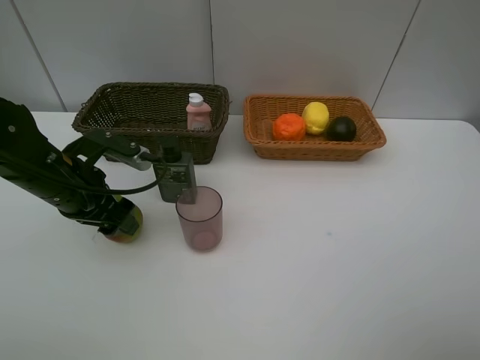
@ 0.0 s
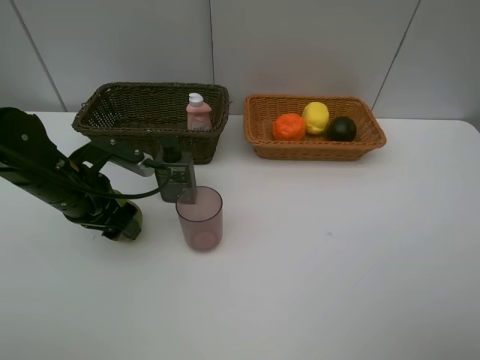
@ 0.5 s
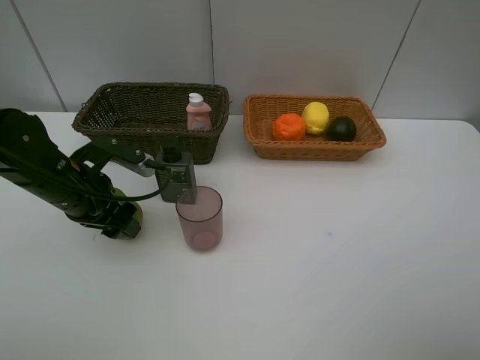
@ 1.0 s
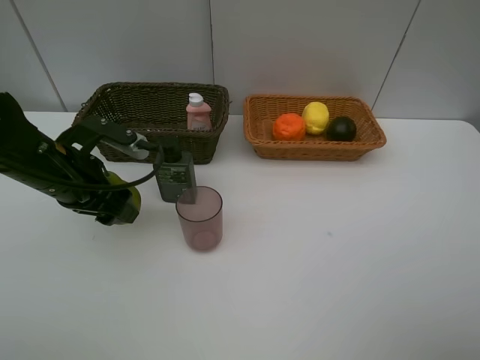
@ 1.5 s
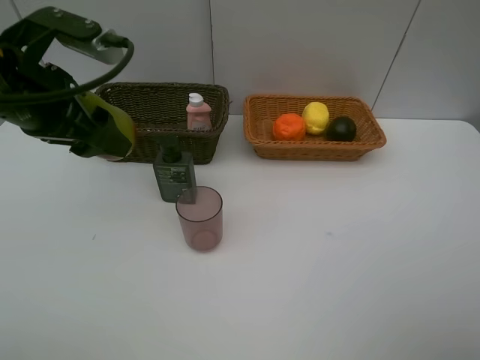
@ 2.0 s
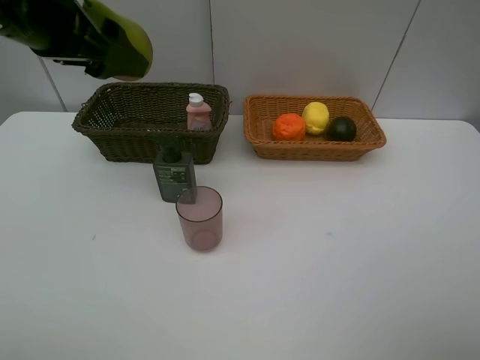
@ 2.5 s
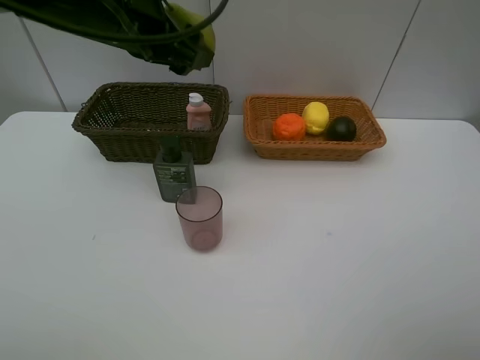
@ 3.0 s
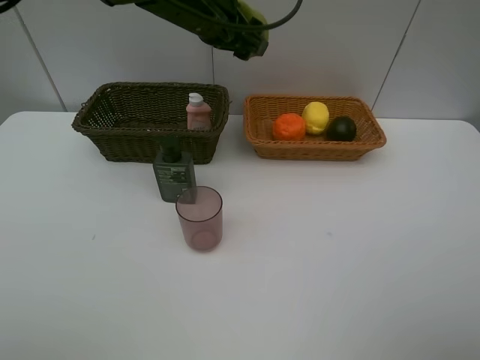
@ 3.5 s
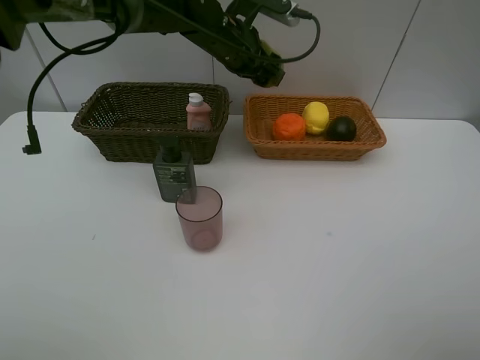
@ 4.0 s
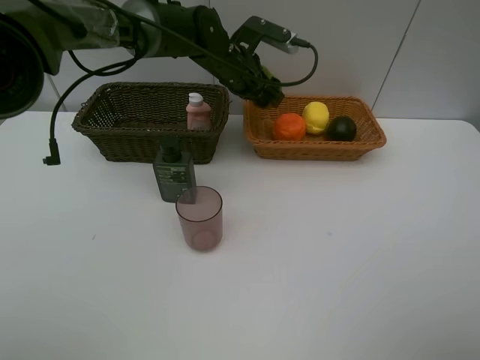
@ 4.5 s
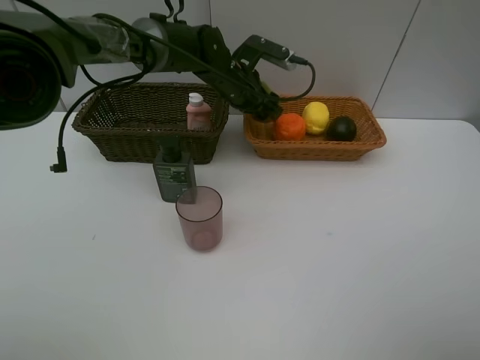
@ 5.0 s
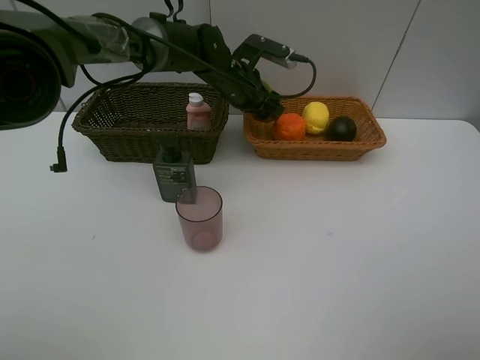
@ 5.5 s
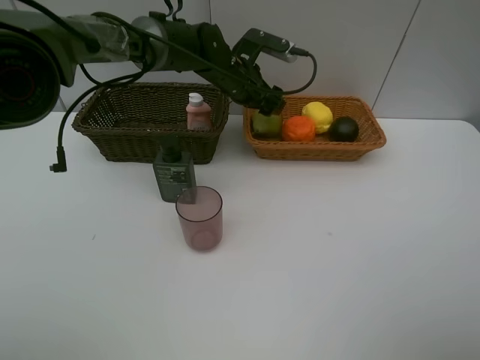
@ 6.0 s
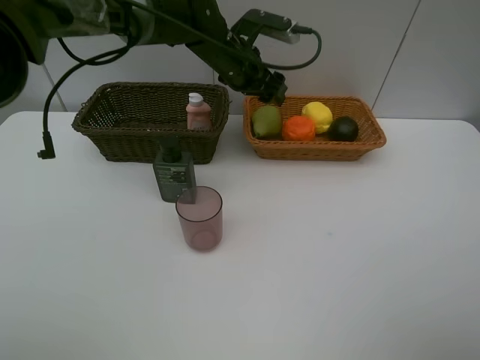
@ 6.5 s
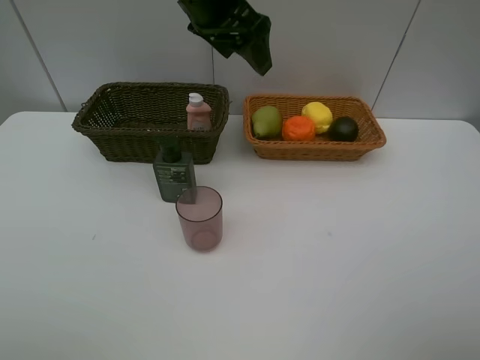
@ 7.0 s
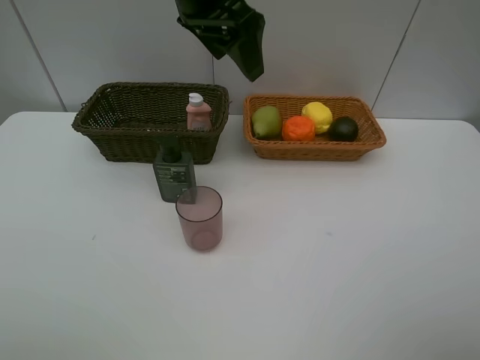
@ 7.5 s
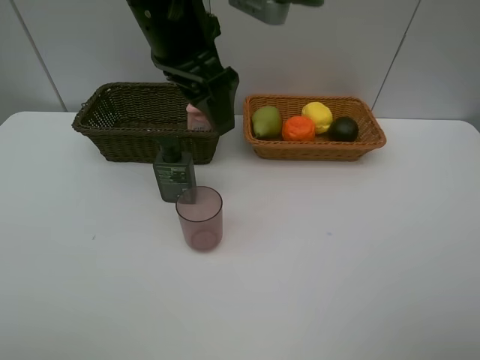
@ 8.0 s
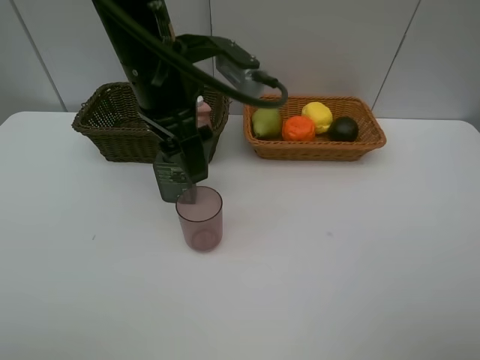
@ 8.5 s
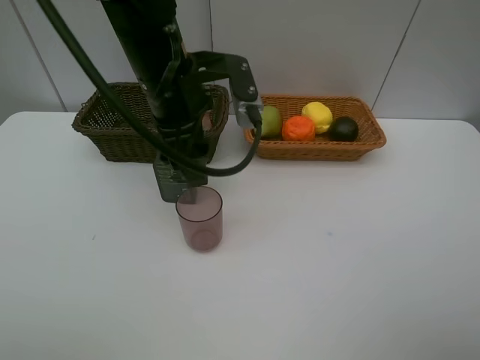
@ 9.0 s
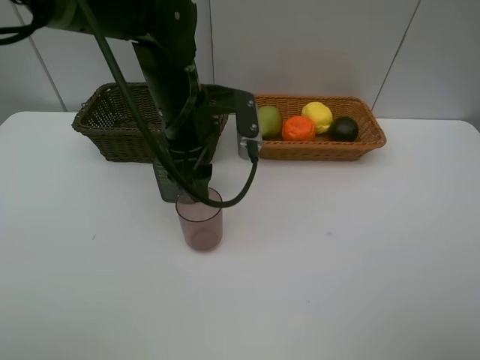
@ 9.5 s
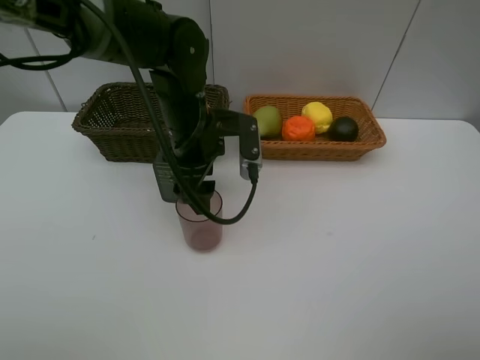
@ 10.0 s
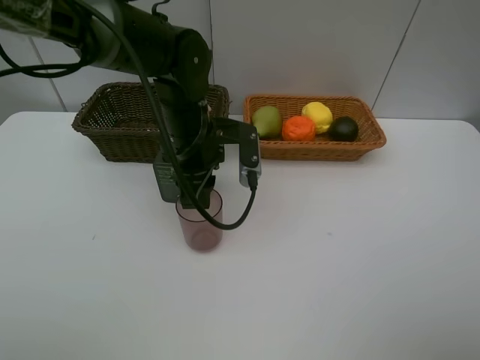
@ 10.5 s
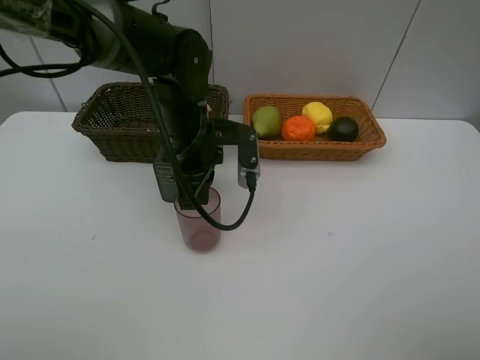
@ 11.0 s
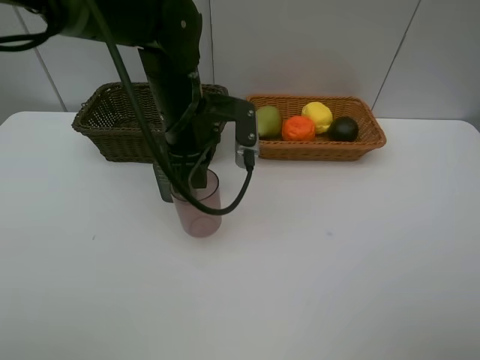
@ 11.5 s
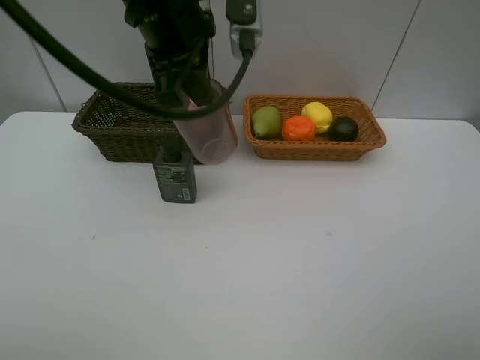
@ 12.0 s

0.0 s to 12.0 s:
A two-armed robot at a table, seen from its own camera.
Task of the whole recording: Place multiple objects separately in different baskets.
Step, 2.0 to 6.5 s: Place the pear in the light basket with left gripper.
Step, 7.0 to 11.5 s: Pick up the red cup with left gripper.
0.0 to 2.0 s: The left gripper moves upward, some 15 cm.
2.0 to 4.0 s: The left gripper goes approximately 30 cm forward and to the right.
4.0 to 6.0 s: The left gripper goes roughly 5 cm downward.
6.0 to 8.0 s: The left gripper heads backward and upward, covering roughly 25 cm.
8.0 to 10.0 s: The left gripper is displaced downward by approximately 15 cm.
10.0 to 12.0 s: The left gripper travels upward by roughly 15 cm, and closes.

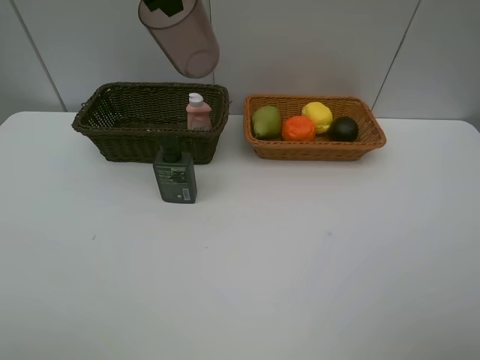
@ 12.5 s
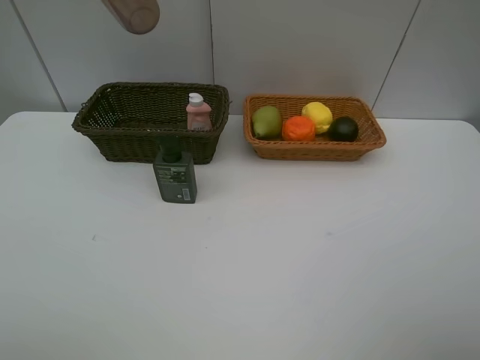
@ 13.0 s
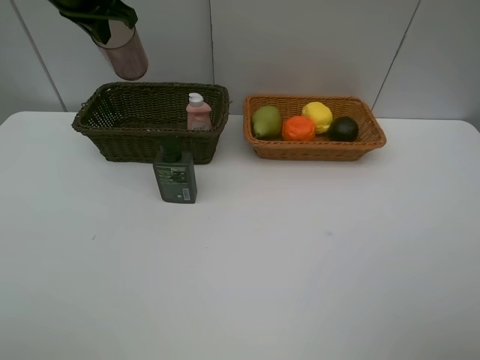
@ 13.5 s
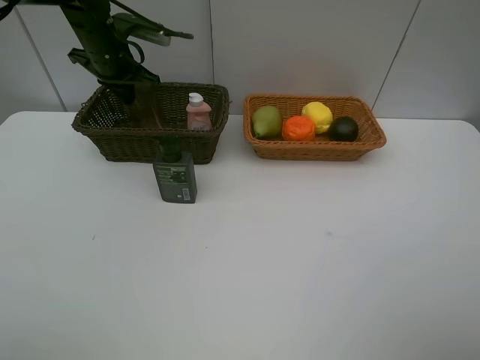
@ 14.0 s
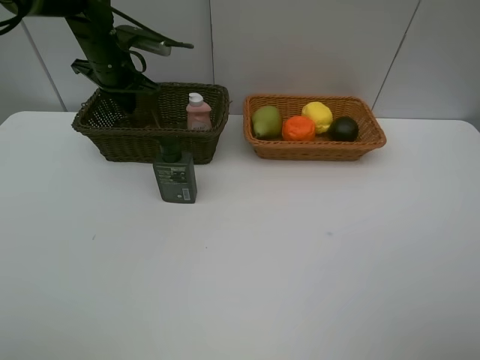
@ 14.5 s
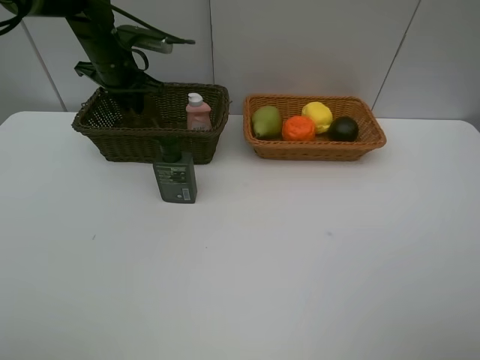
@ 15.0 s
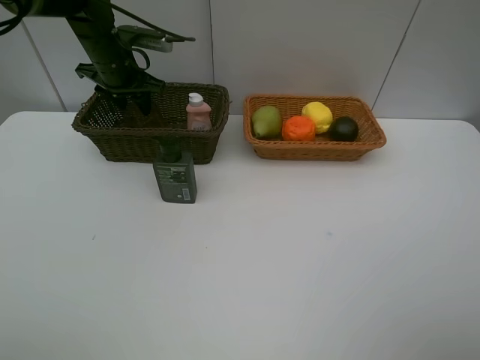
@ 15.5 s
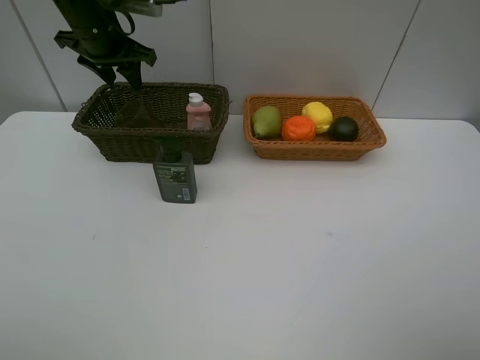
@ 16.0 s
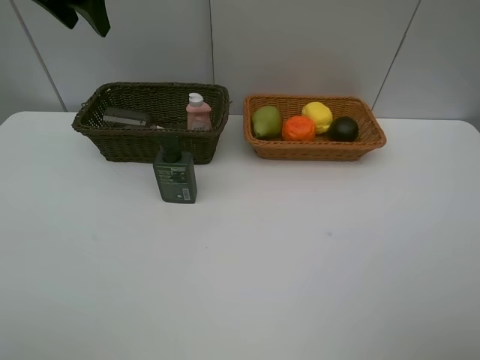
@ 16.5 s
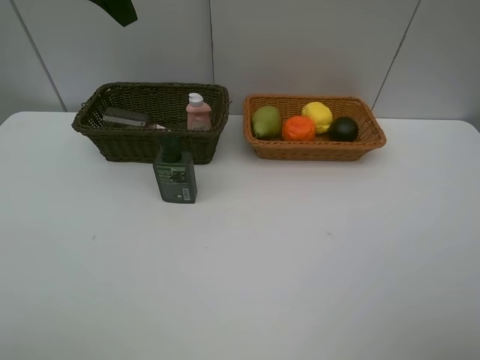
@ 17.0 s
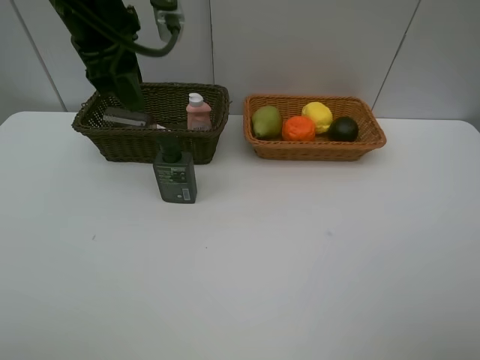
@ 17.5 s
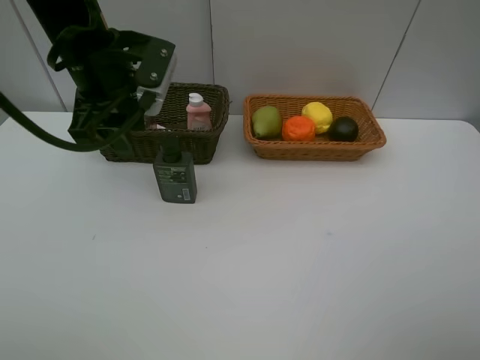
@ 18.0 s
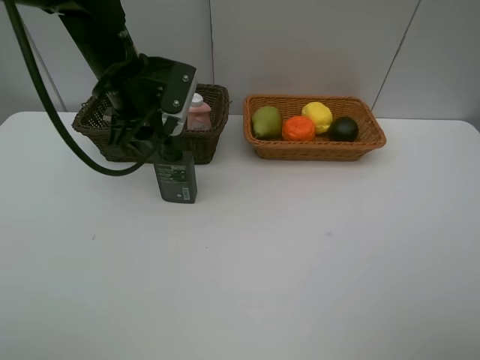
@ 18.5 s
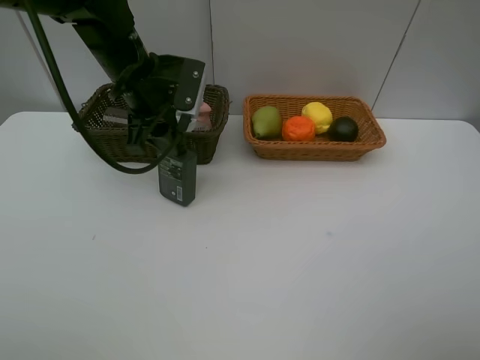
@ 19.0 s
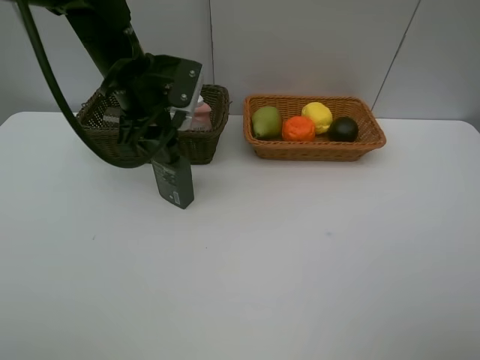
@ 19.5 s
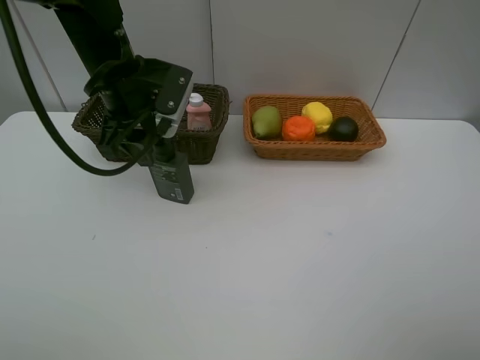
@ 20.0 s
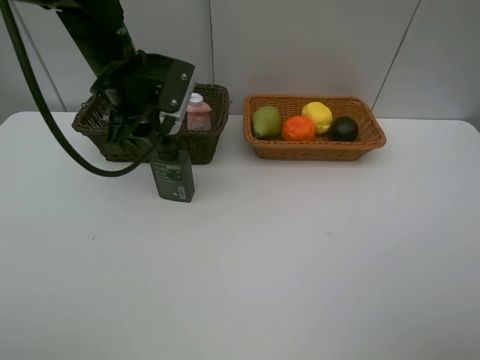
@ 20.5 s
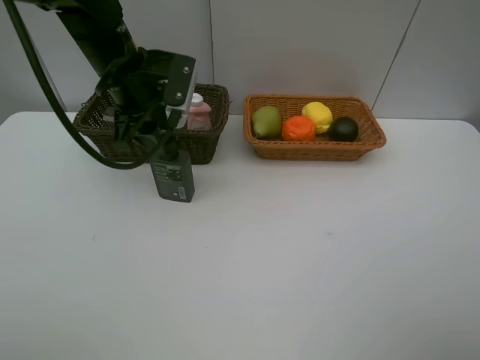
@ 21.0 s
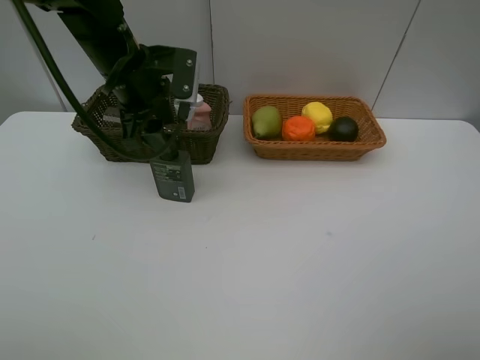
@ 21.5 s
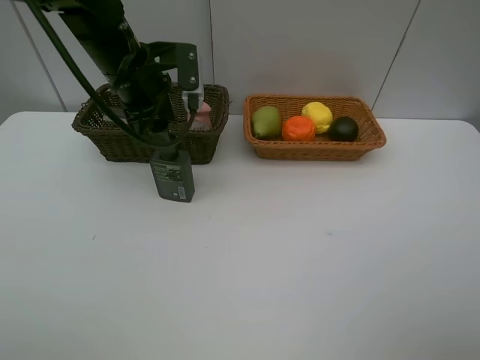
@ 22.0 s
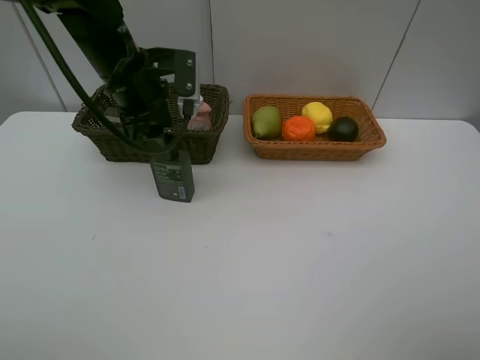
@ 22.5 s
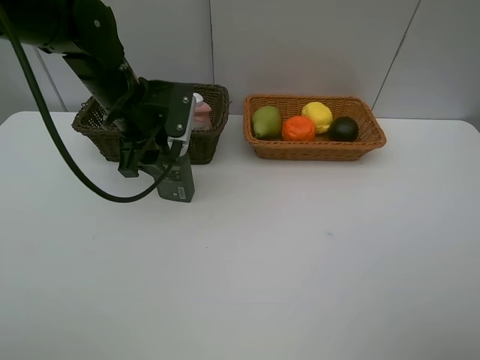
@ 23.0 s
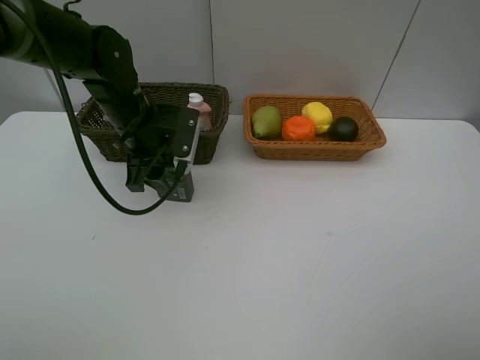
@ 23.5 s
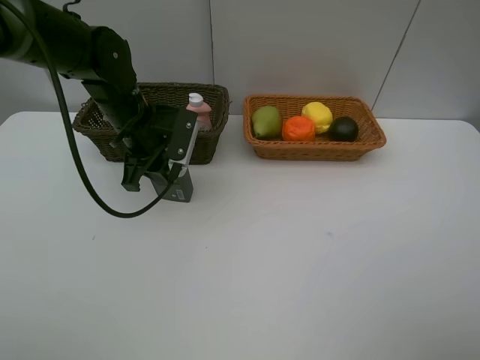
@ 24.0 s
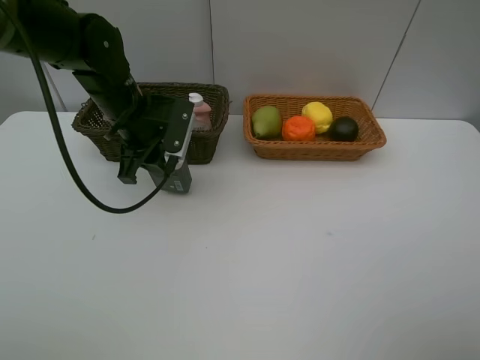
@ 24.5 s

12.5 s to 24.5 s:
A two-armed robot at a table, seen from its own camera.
Task of the whole recording: Place multiple objects separately in different baskets.
Step, 12.5 to 16.0 s: Place the red cup in the dark basket with left gripper.
12.5 to 14.5 s: The left gripper goes about 25 cm downward, forward and to the left.
14.5 to 16.5 s: The left gripper moves upward and backward, some 20 cm, and opens.
16.5 to 18.5 s: The left gripper travels downward and to the right by about 15 cm.
18.5 to 22.5 s: The grippers move only a little.

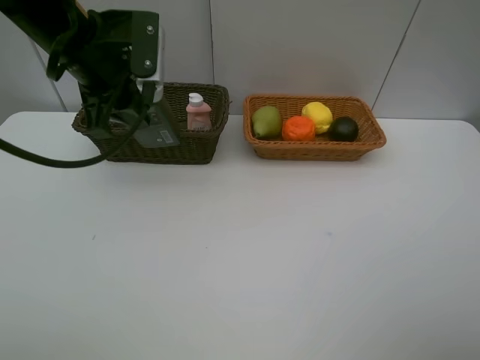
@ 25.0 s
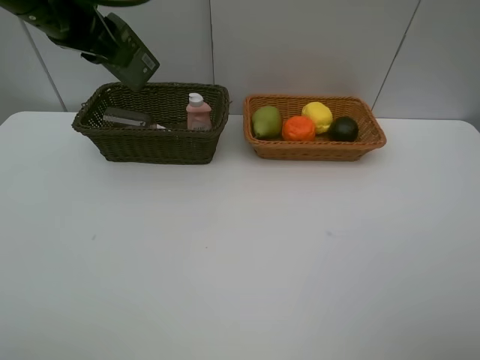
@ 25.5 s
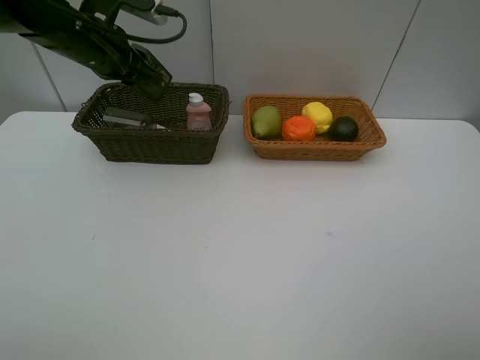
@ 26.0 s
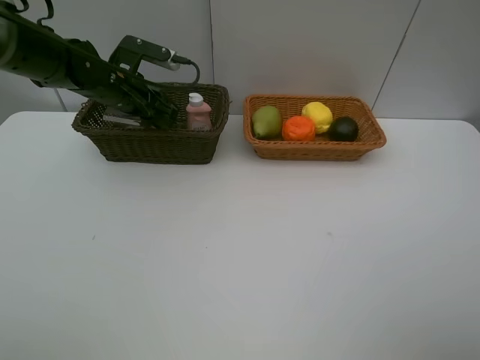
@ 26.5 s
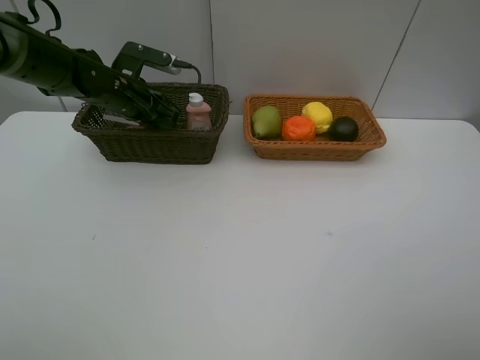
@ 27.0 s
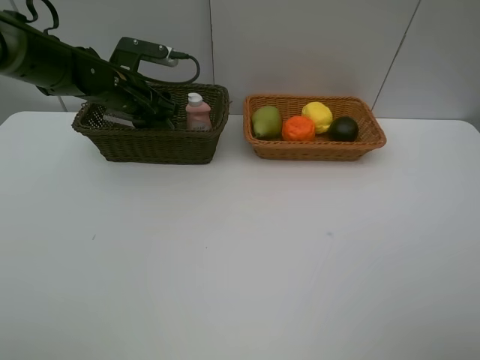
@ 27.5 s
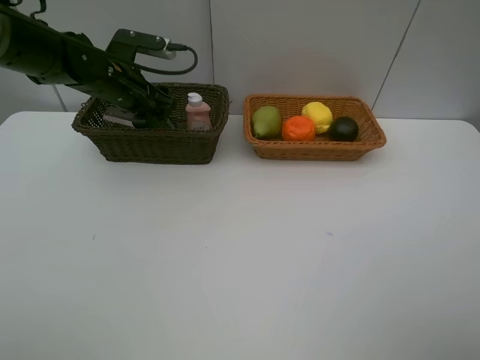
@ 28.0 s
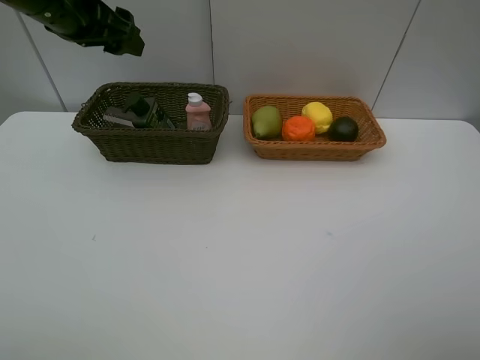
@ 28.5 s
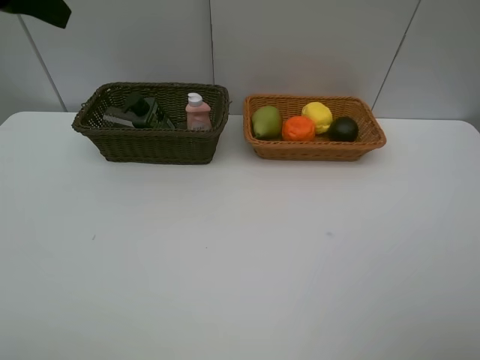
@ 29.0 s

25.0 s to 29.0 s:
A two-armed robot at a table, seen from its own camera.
Task of the whole recording: Place multiple objects separately in different baskets.
Step, 25.0 to 28.0 s: Place the hard facial cleanser in the dark basket with left gripper.
25.0 to 27.0 s: The left gripper is displaced downward and forward by about 15 cm.
27.0 to 29.0 s: The left gripper heads upward and backward, covering about 30 cm, and opens its fingers.
